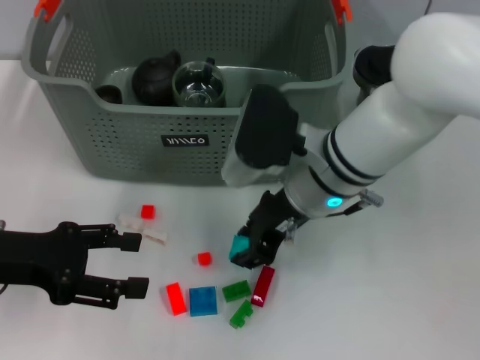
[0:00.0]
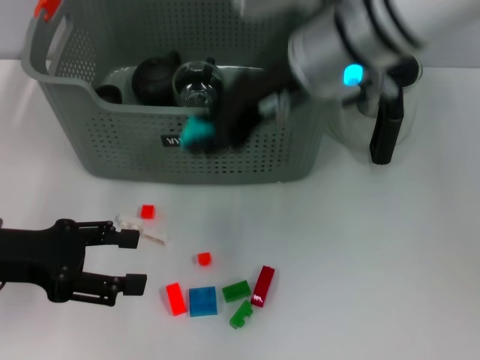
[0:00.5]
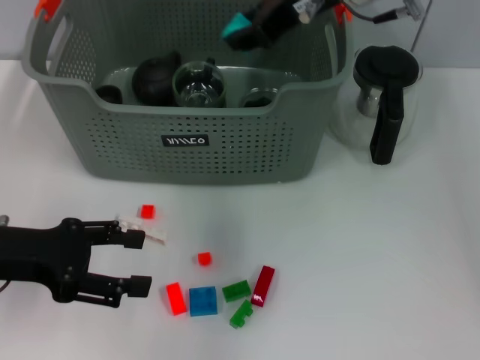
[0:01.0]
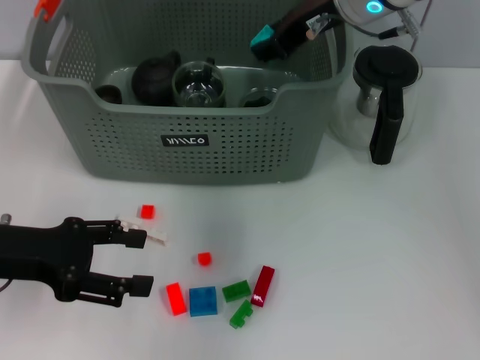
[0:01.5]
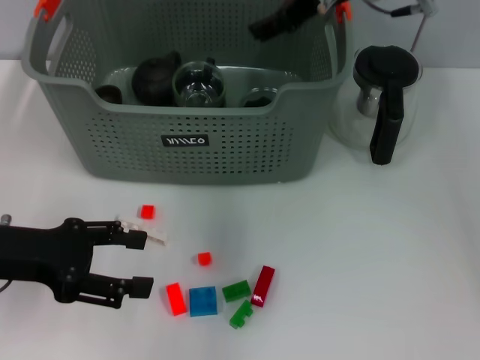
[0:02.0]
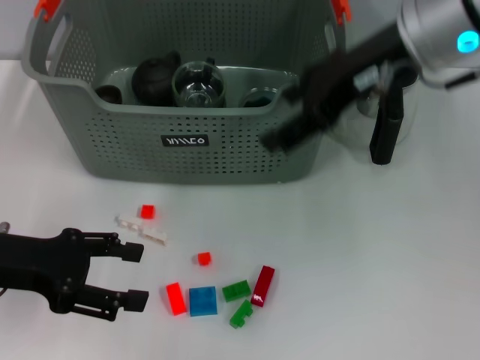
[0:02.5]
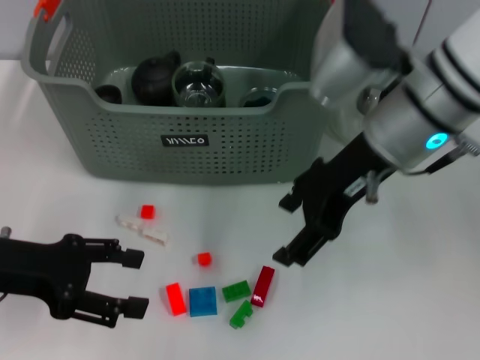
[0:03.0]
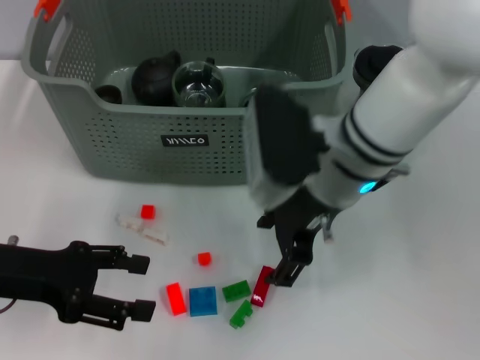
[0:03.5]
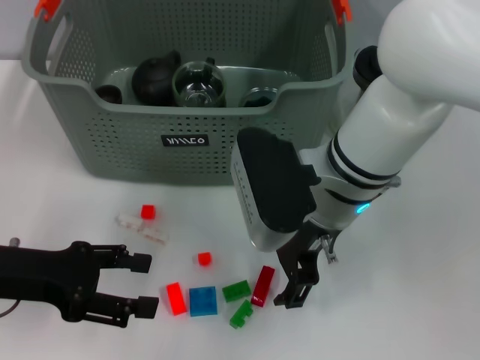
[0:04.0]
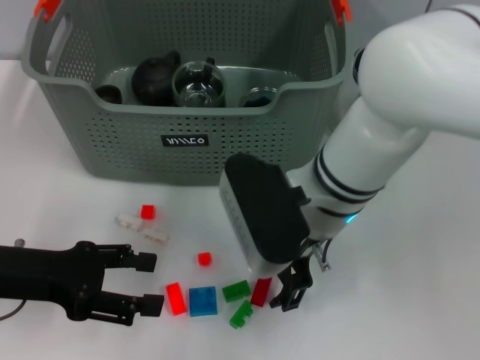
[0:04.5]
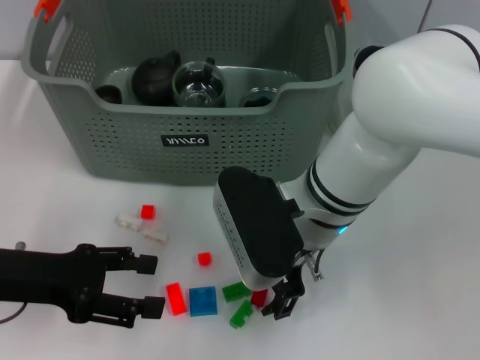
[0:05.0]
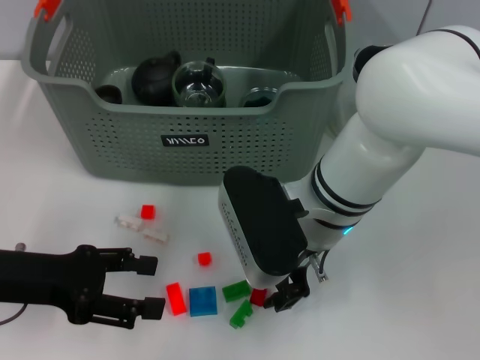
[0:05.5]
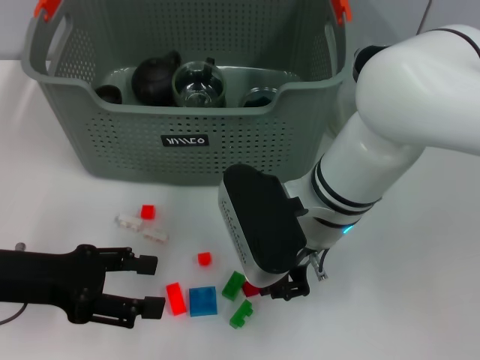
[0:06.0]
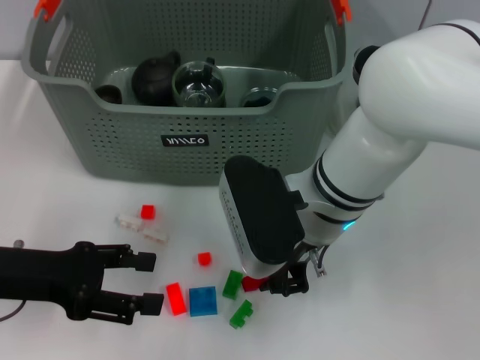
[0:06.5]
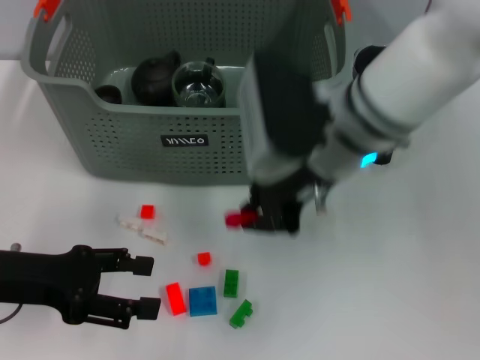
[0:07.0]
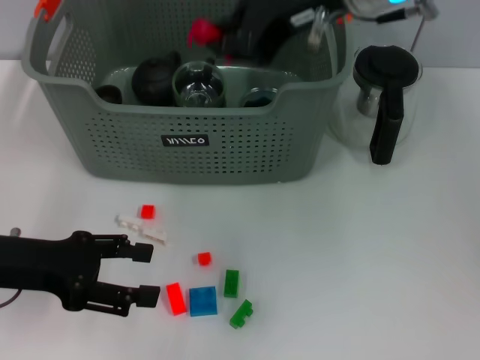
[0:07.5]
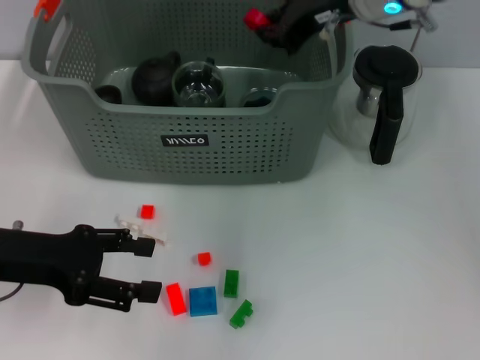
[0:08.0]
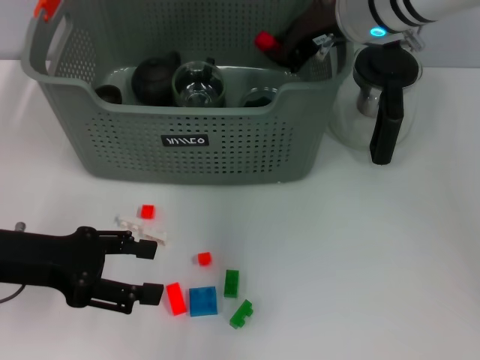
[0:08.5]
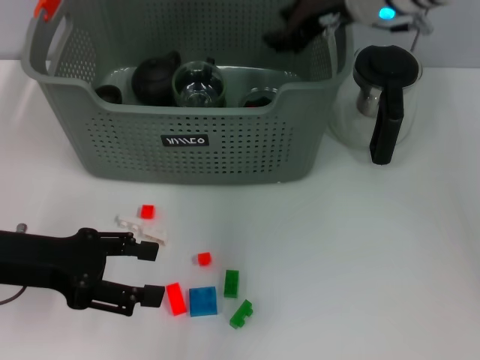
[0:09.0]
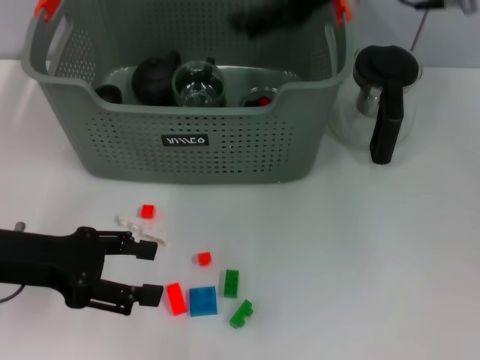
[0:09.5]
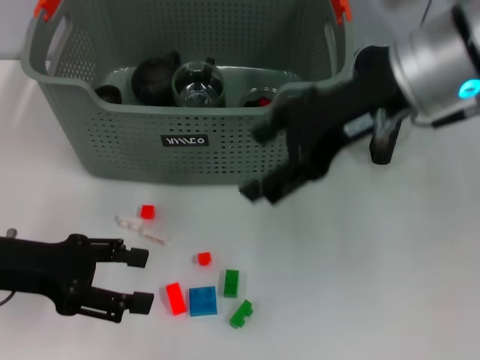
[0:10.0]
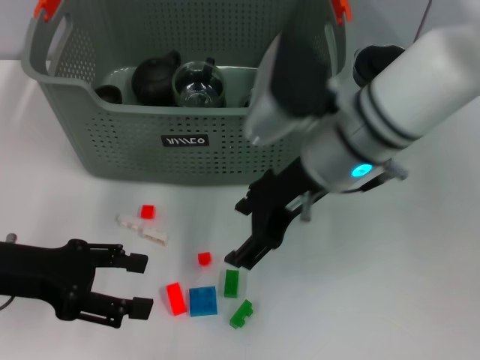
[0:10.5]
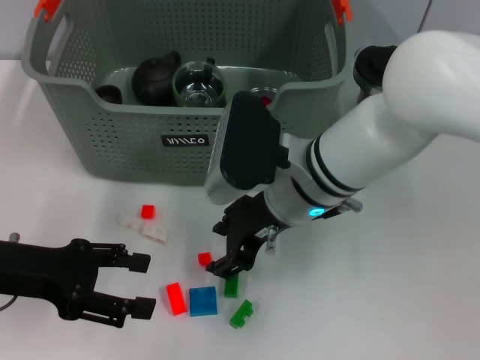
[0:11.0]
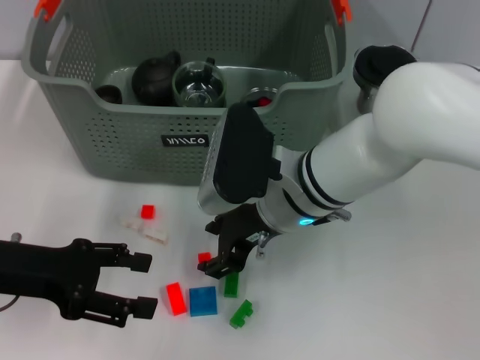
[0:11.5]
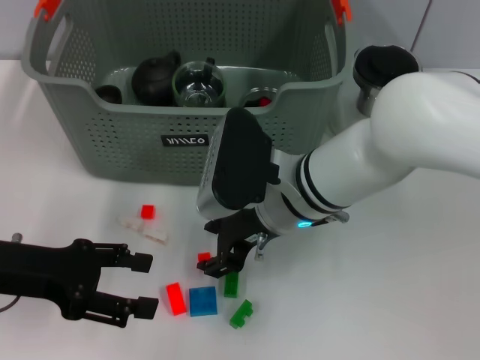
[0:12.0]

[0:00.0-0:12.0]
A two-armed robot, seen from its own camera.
Task of the whole recording: pick up the teacup on the table and place it into the storage bin, pick up the block on the table and place it into the storage bin.
Step, 0:00.5 to 0:02.0: Place the light blue block in the storage box with right gripper.
0:00.0 to 0:02.0: The right gripper shifts approximately 15 cm upward and forward, and opens its fingers.
0:02.0 to 0:04.0: The right gripper heads downward and backward, covering about 15 cm.
0:04.0 to 0:06.0: The right gripper closes its fingers.
0:06.0 to 0:08.0: The right gripper moves upward, forward and to the right, about 20 cm.
0:08.0 to 0:10.0: The right gripper travels backward by roughly 10 cm, and opens.
0:10.0 to 0:12.0: The right gripper travels downward and to the left by roughly 20 cm.

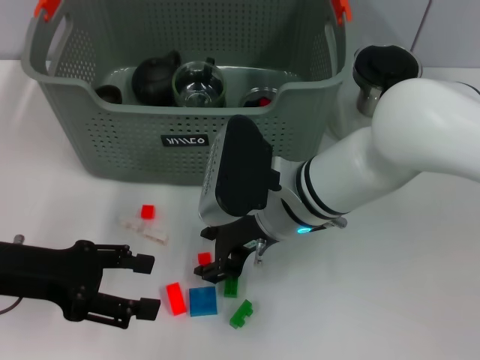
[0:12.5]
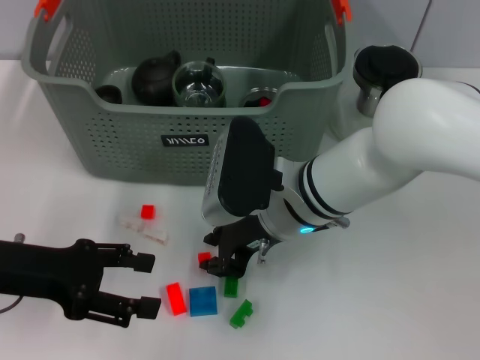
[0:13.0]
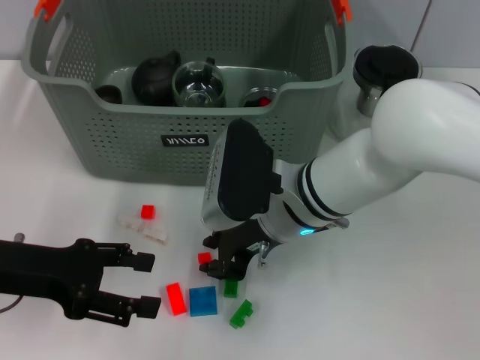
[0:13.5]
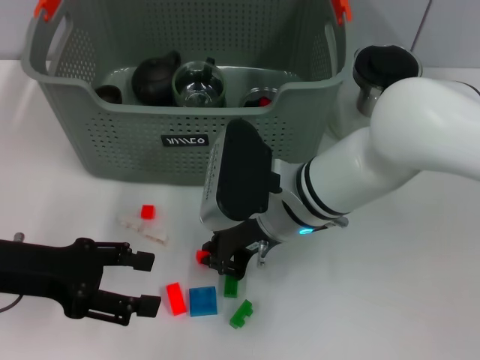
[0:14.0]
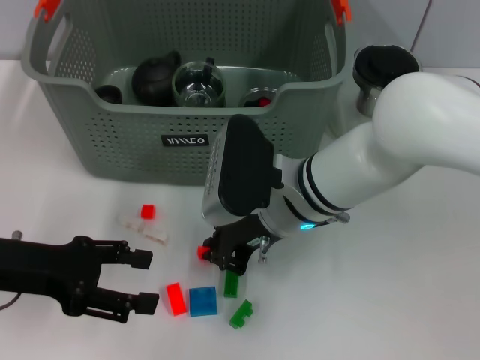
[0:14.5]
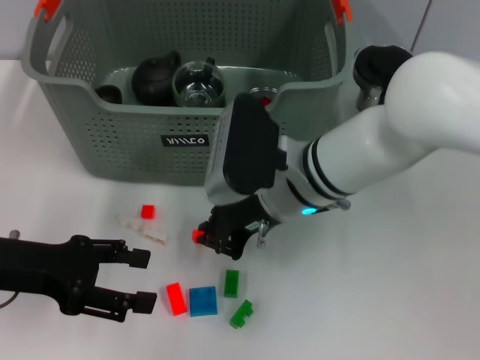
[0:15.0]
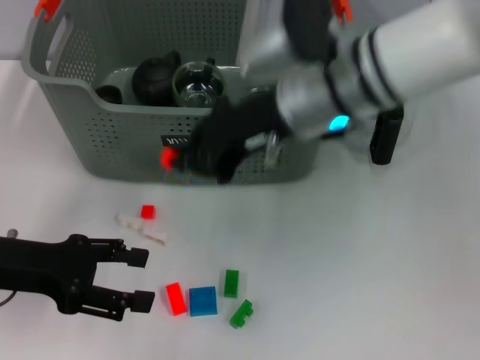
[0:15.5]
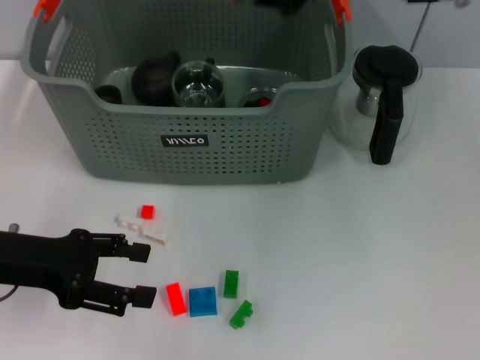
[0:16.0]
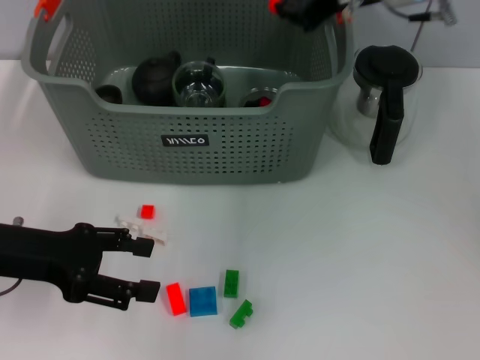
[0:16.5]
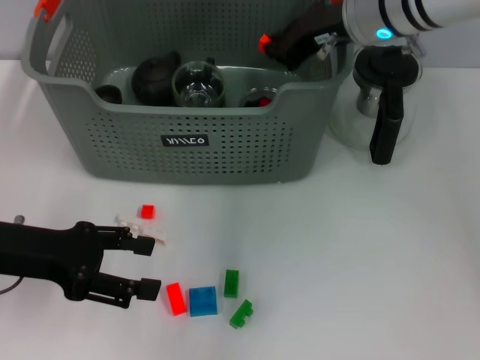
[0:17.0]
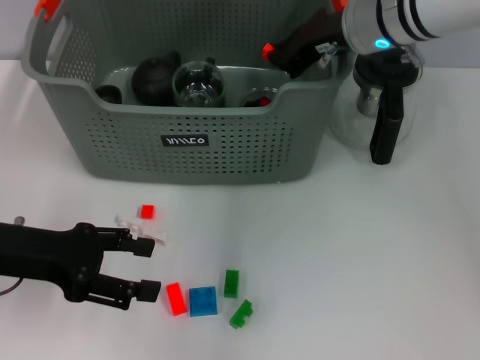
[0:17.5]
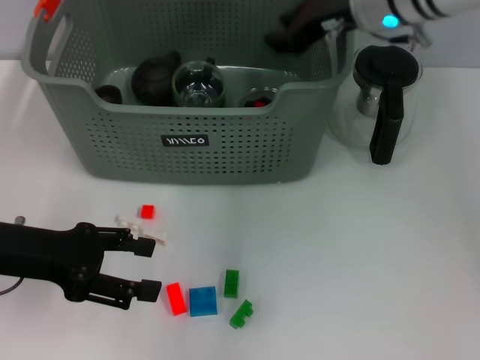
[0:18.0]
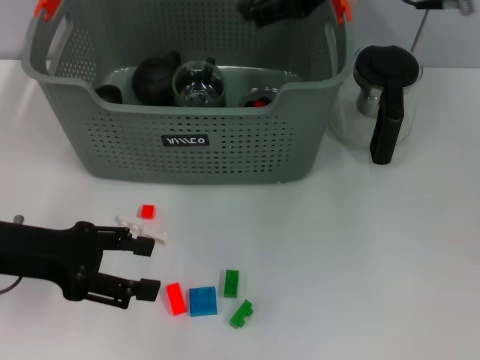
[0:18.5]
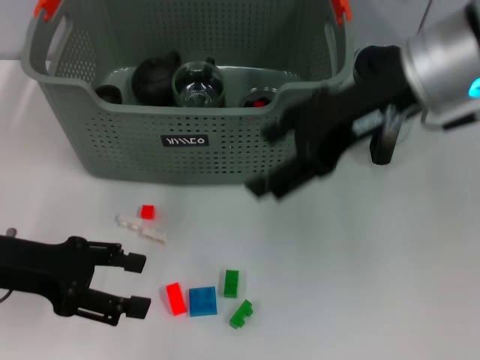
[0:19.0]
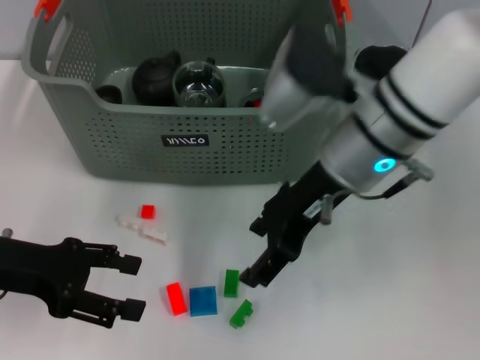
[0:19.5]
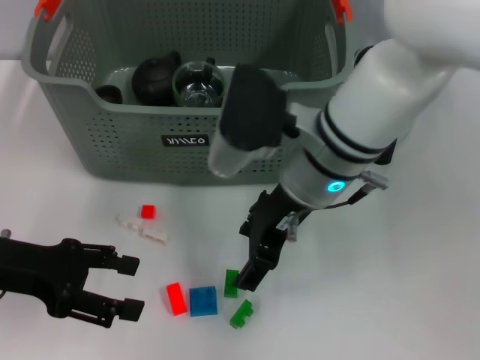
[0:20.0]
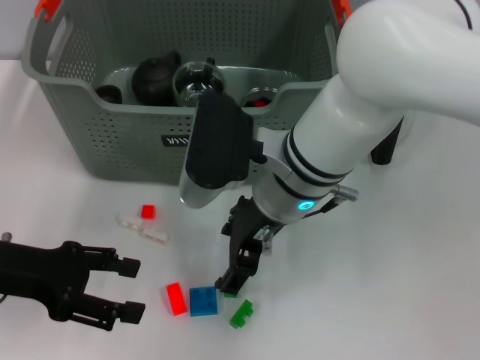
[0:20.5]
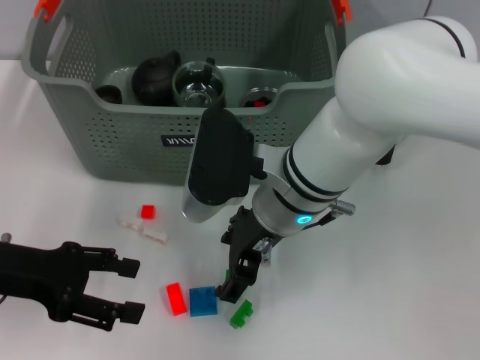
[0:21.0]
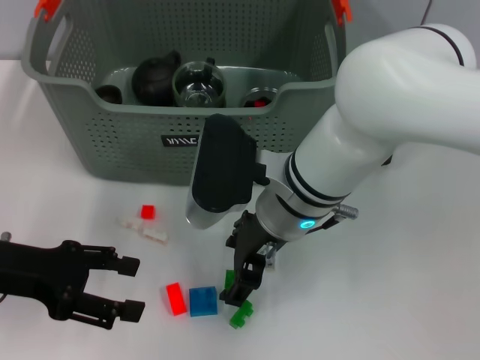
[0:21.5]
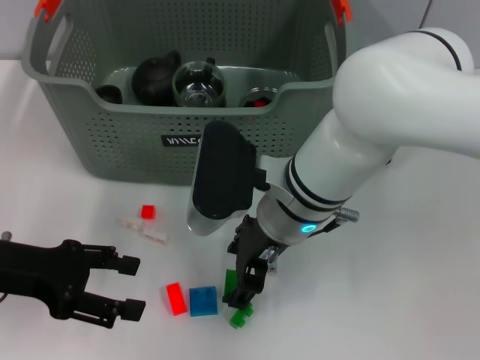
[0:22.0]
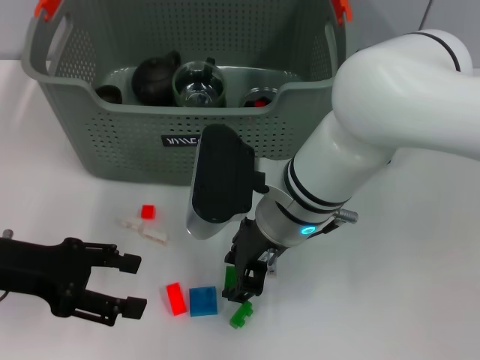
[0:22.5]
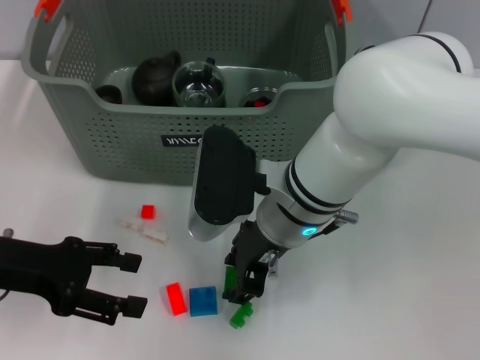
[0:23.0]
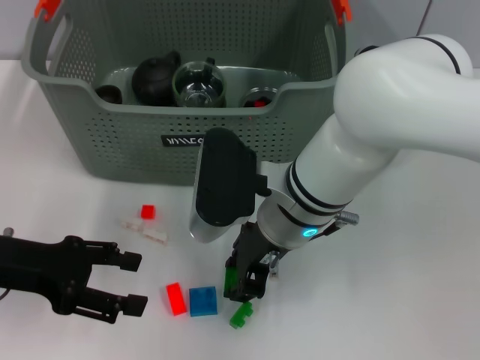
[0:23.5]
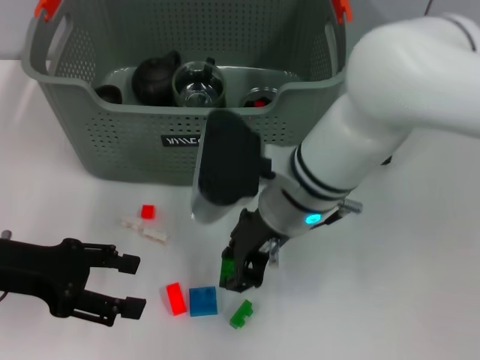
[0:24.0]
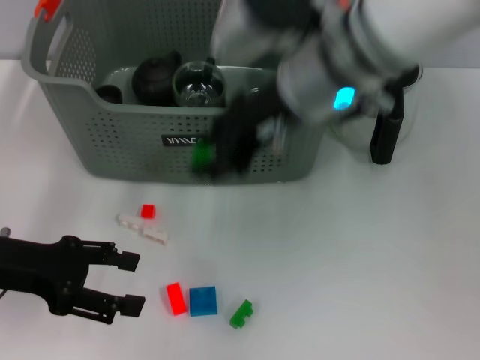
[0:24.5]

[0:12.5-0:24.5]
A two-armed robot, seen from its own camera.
Task of the whole recording: pick up the teacup on the table and place it into the storage bin, pick up the block on the table and place it into the storage bin.
Step, 0:12.5 to 0:14.5: Grasp the orange block with right gripper.
Step, 0:15.0 to 0:18.0: Place the orange block in the storage box with right gripper.
Step, 0:18.5 to 0:24.0: Grasp the green block with right gripper.
0:12.5 to 0:14.5: The right gripper closes its fingers.
0:14.5 to 0:16.5: The right gripper goes some 20 cm upward, forward and to the right.
0:16.5 to 0:18.5: The right gripper moves backward, approximately 5 cm, and opens up.
0:18.5 to 0:20.5: The right gripper moves downward, to the left and backward, about 20 cm.
0:20.5 to 0:22.5: The right gripper closes.
0:22.5 to 0:24.5: The right gripper goes some 10 cm upward.

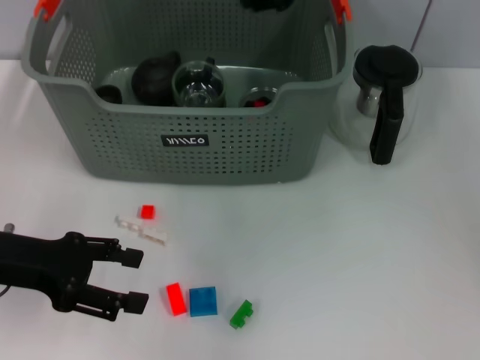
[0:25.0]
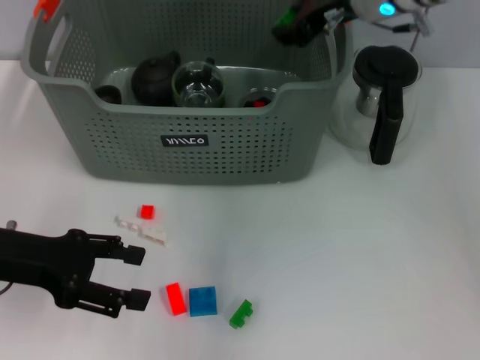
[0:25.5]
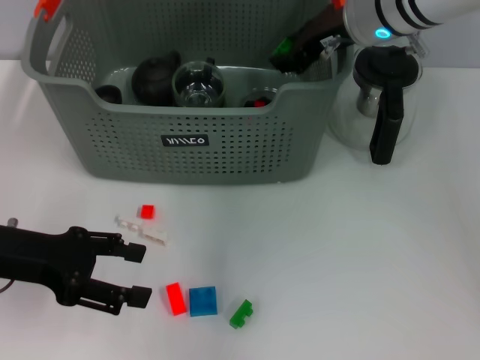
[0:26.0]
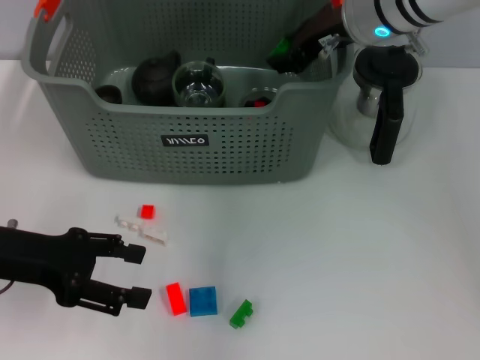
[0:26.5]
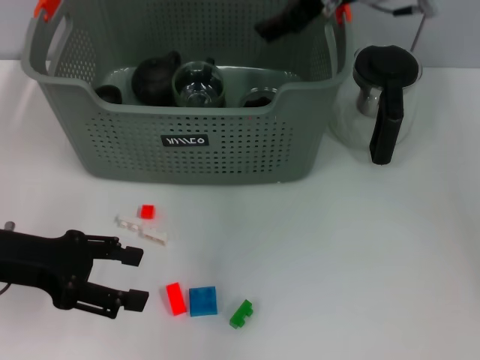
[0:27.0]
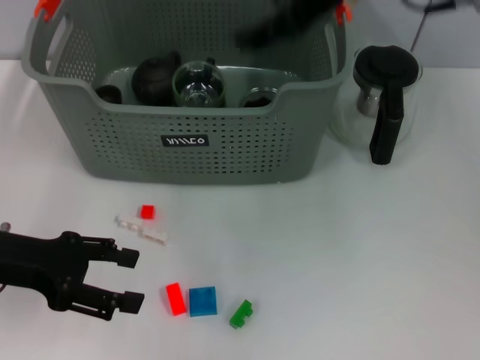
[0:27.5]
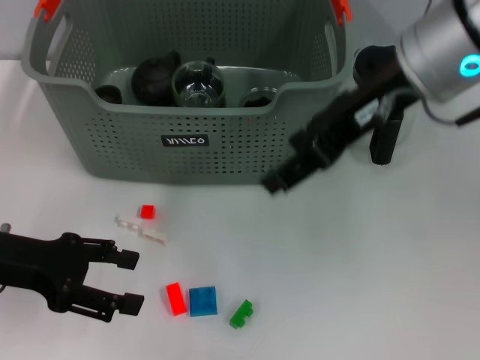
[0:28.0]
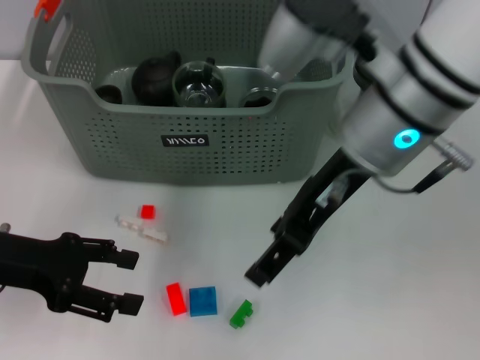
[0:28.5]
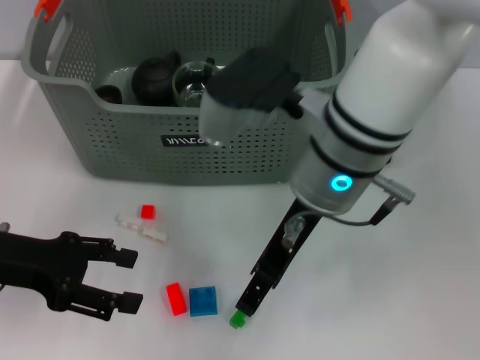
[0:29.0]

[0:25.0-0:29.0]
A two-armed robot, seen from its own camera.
Task of the whole recording: pick up the teacup on the table and place it into the storage bin, pick up the block on the table and place it into the storage bin.
Step, 0:25.0 to 0:27.0: Place the green block in the storage box with right gripper.
0:25.0 to 0:27.0: The right gripper opens.
0:27.0 to 0:29.0: The right gripper travels backward, to the left and downward by roughly 15 cm.
